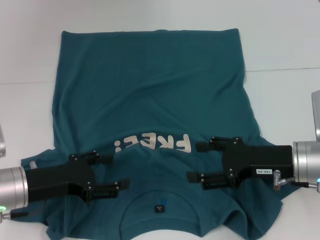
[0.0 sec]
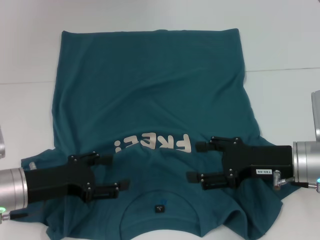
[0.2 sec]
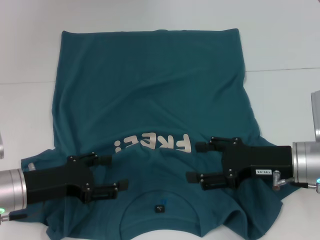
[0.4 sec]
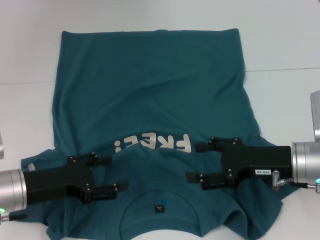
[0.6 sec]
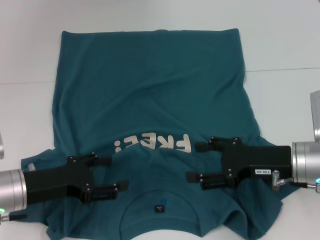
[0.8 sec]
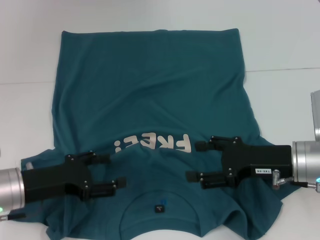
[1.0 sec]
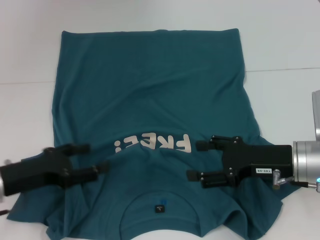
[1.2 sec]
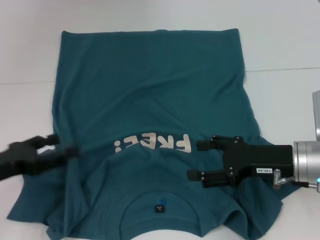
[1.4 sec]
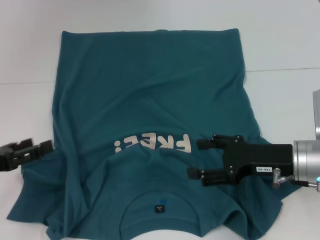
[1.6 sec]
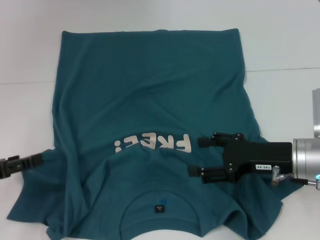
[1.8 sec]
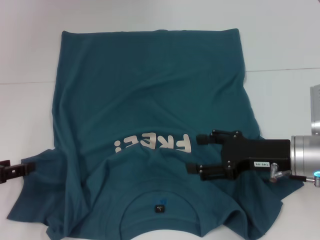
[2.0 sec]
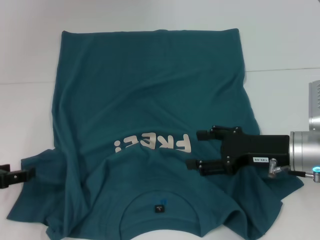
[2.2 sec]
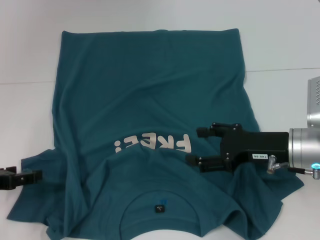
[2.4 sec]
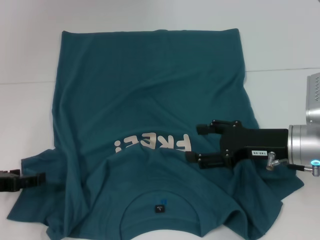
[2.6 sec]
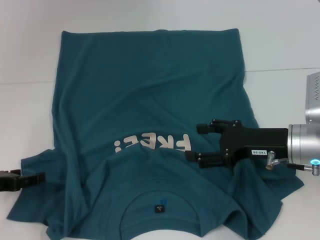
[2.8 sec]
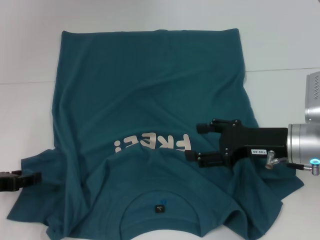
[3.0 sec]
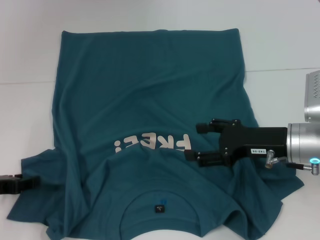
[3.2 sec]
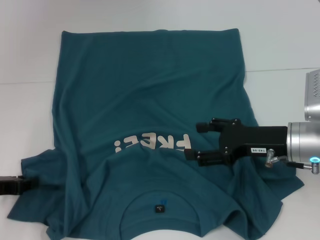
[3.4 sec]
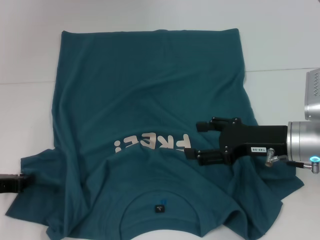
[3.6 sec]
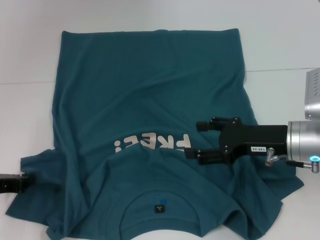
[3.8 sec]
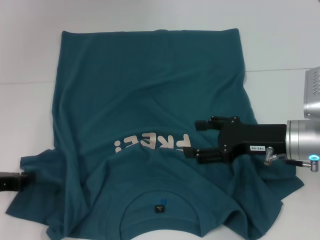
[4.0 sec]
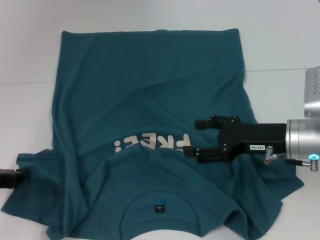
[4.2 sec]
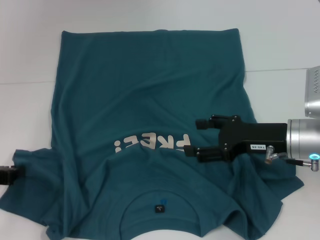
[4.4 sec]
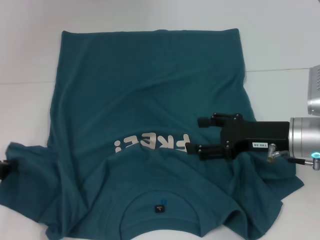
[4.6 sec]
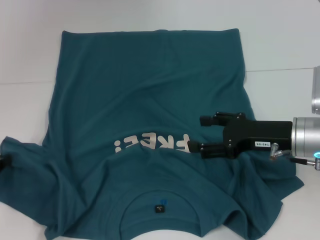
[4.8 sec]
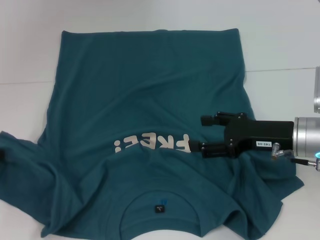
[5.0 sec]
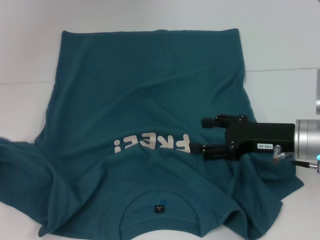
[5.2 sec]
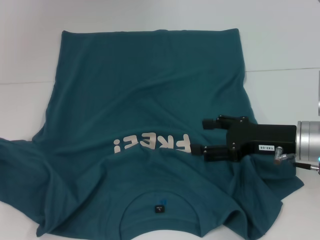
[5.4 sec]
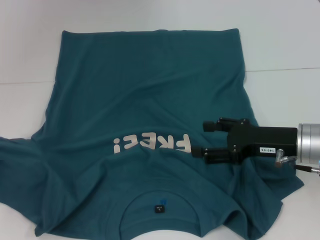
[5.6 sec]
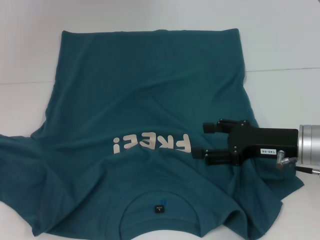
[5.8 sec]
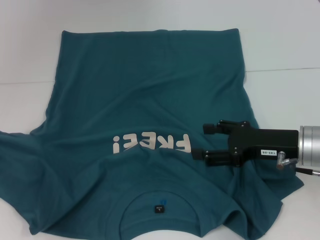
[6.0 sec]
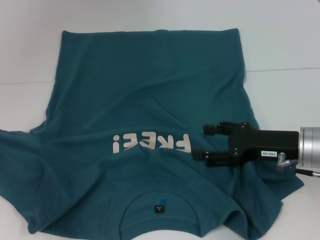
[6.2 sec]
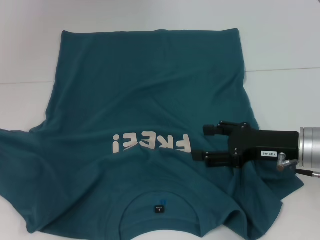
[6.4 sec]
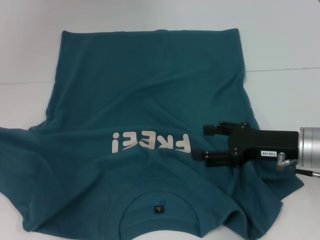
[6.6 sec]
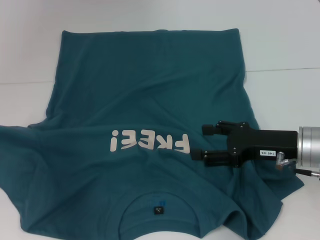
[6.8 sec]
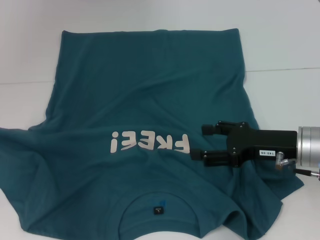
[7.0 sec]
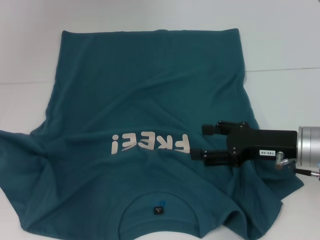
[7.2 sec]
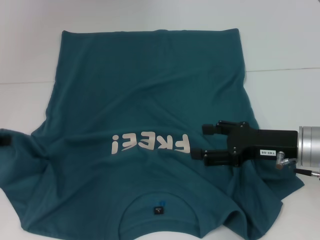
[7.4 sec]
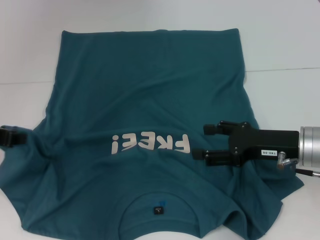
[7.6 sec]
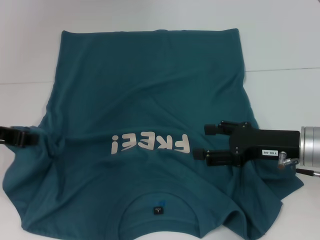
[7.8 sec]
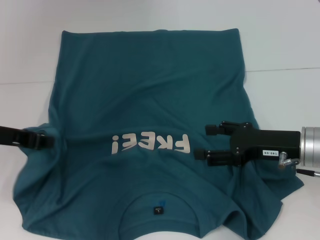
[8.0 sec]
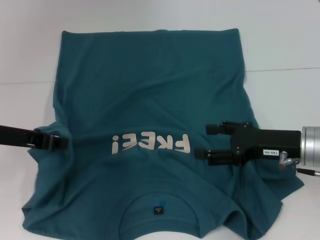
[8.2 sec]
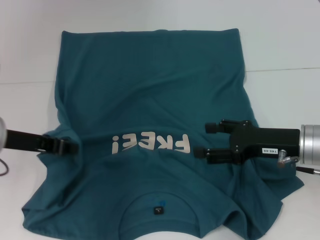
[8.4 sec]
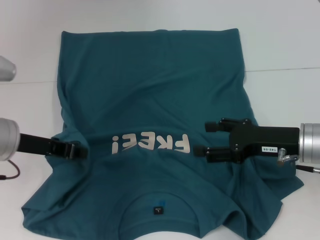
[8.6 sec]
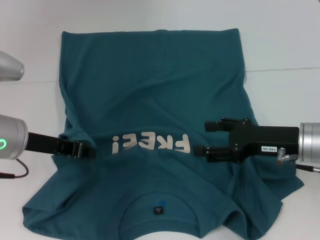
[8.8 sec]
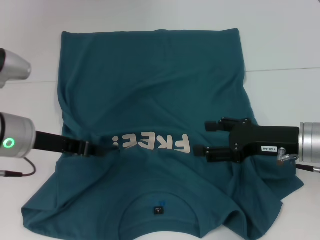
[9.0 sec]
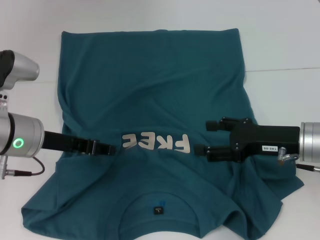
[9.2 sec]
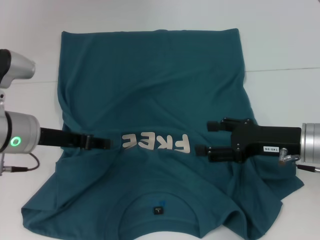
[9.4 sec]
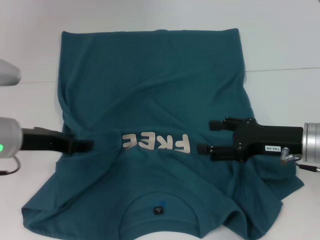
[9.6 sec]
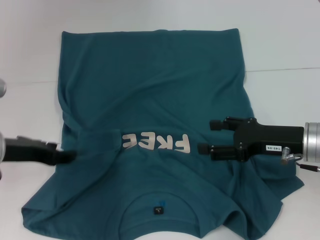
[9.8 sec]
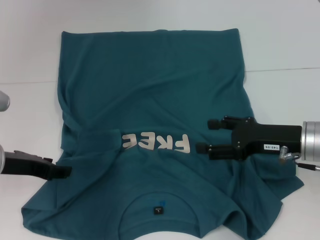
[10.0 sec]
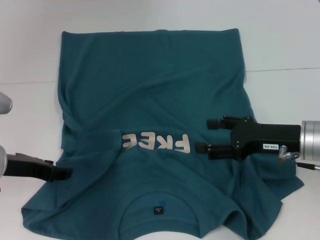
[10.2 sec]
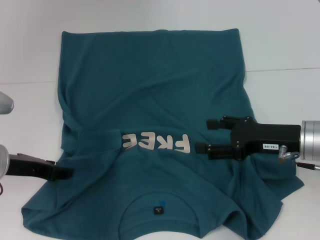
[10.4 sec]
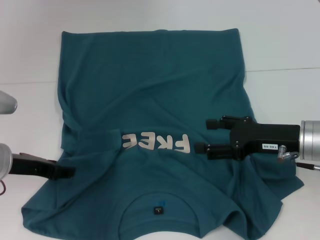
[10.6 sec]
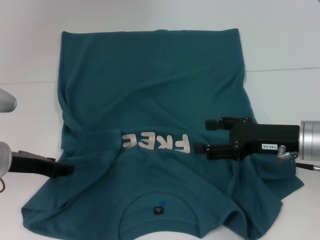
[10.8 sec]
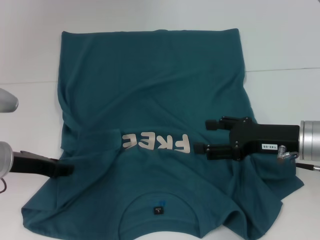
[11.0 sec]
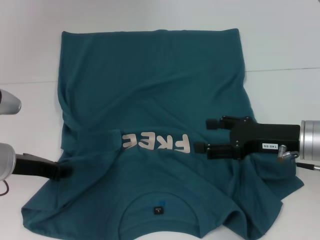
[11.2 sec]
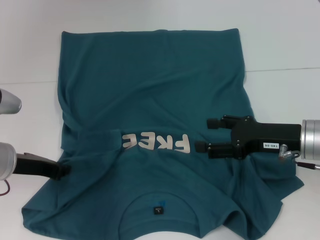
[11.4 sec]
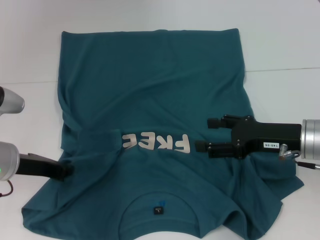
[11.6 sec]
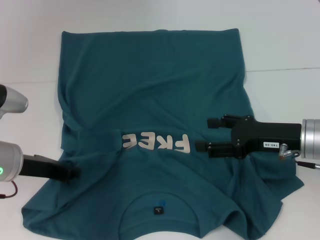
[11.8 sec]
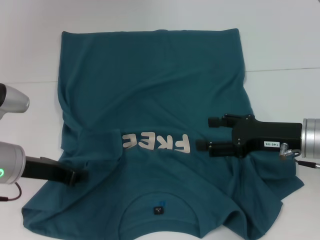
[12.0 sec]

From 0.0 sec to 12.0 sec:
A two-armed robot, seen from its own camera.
From 0.0 sec to 1.6 sec: The left gripper moves to the left, roughly 10 cm.
From 3.0 sec to 4.4 sec: The left gripper closes its fingers.
From 4.4 sec to 6.0 sec: The left gripper shifts roughly 5 cm upward.
From 6.0 sec to 7.6 sec: The left gripper heads to the right, covering some 5 cm.
From 7.6 sec to 9.0 sec: The left gripper goes roughly 10 cm to the right.
From 9.0 sec to 10.4 sec: The left gripper ends up about 5 cm from where it was, and opens up.
From 10.4 sec to 12.0 sec: The left gripper closes its fingers.

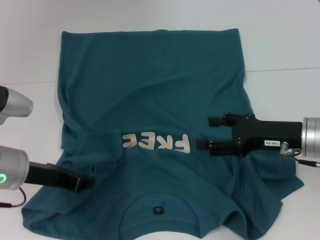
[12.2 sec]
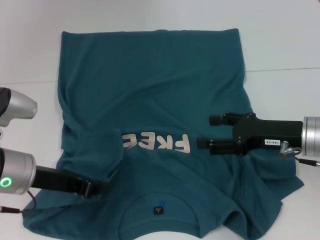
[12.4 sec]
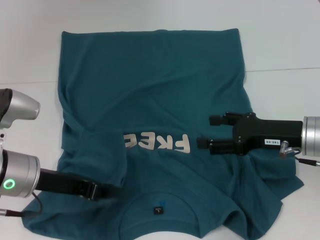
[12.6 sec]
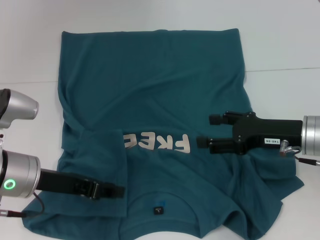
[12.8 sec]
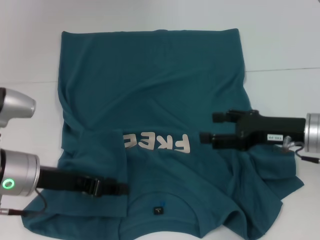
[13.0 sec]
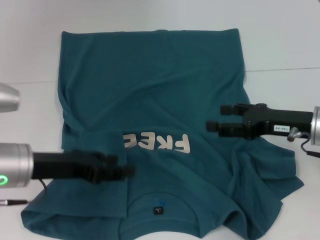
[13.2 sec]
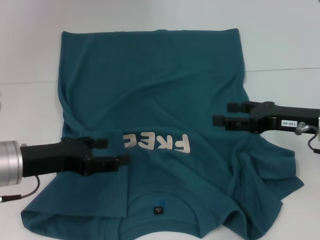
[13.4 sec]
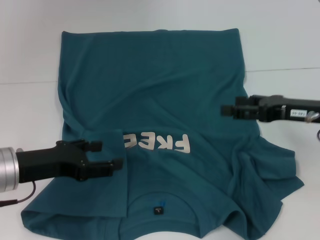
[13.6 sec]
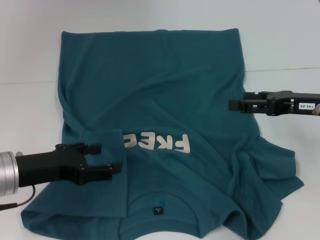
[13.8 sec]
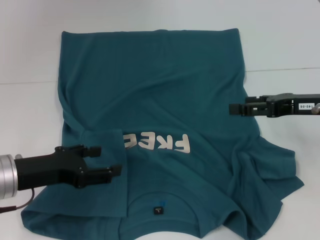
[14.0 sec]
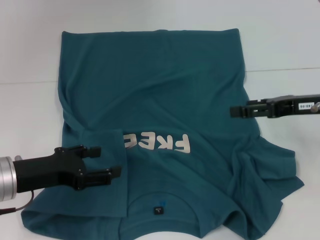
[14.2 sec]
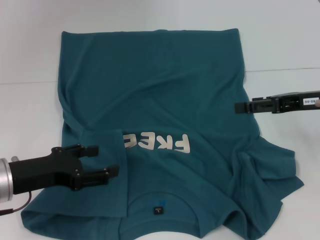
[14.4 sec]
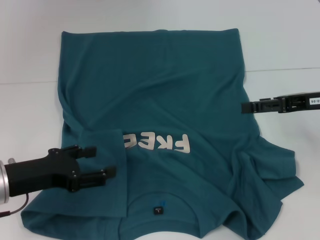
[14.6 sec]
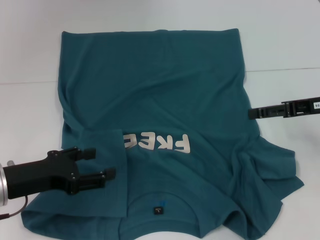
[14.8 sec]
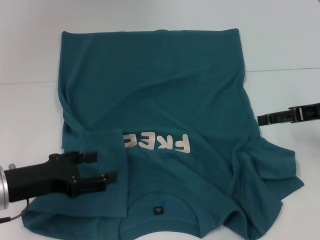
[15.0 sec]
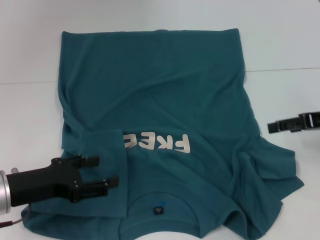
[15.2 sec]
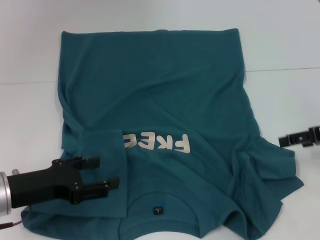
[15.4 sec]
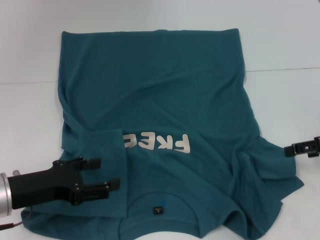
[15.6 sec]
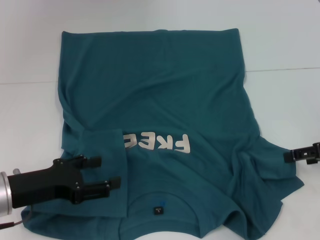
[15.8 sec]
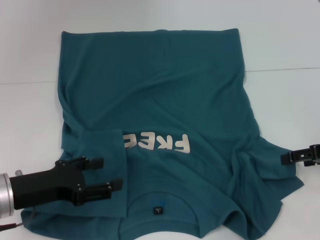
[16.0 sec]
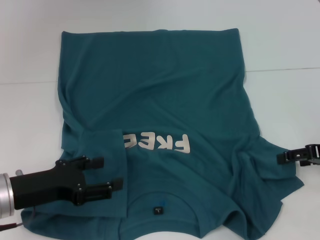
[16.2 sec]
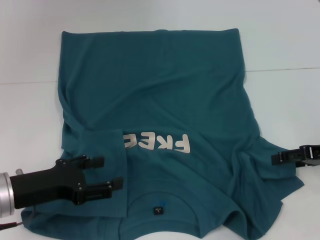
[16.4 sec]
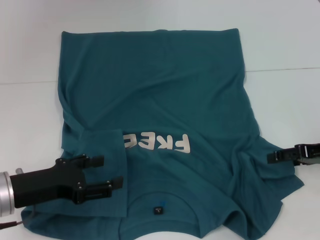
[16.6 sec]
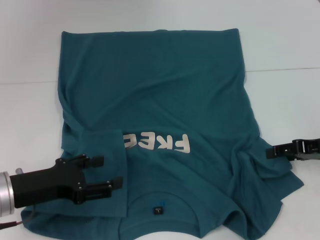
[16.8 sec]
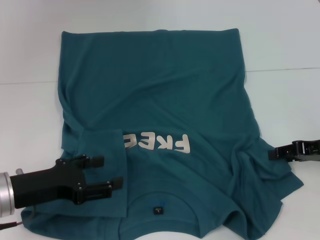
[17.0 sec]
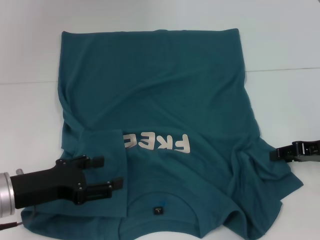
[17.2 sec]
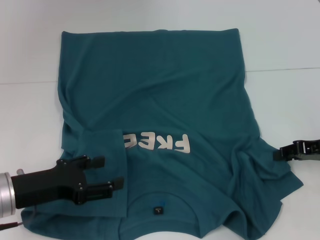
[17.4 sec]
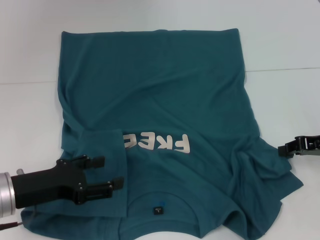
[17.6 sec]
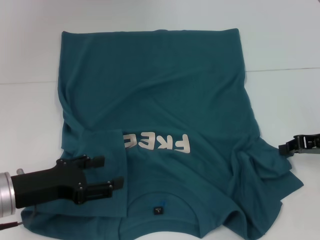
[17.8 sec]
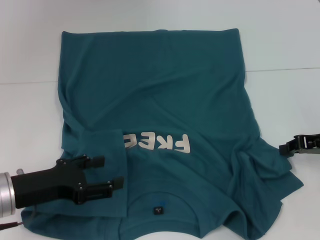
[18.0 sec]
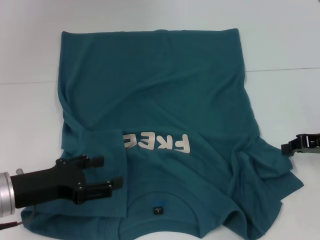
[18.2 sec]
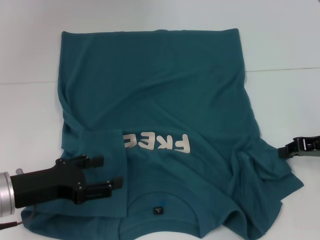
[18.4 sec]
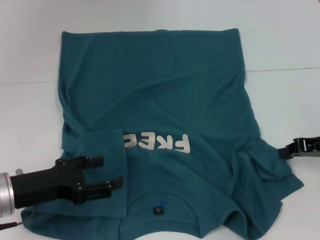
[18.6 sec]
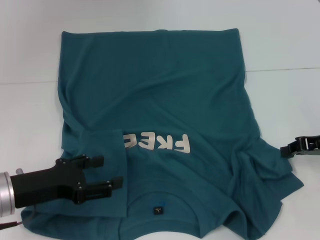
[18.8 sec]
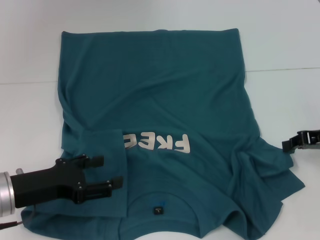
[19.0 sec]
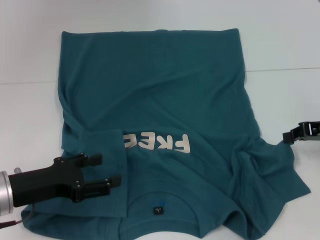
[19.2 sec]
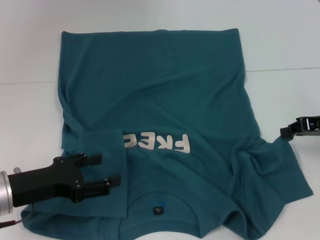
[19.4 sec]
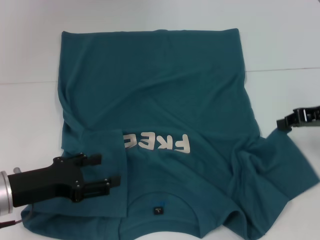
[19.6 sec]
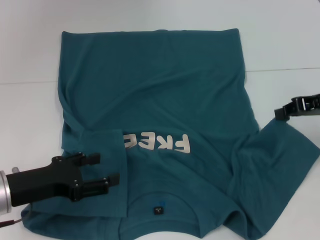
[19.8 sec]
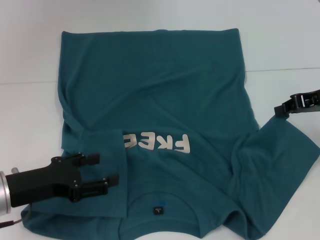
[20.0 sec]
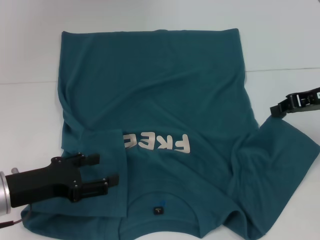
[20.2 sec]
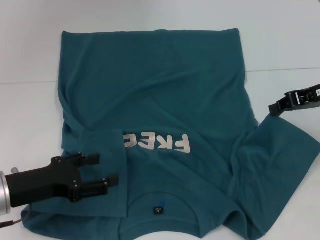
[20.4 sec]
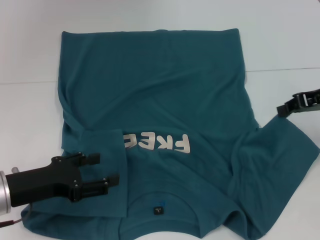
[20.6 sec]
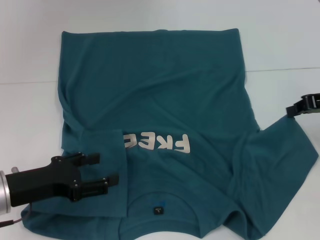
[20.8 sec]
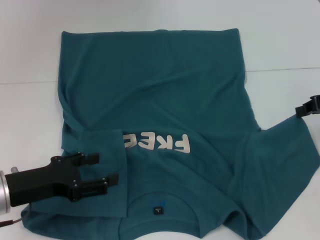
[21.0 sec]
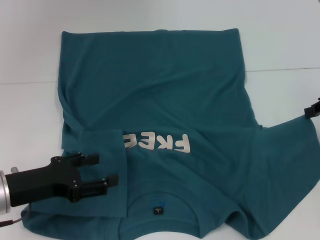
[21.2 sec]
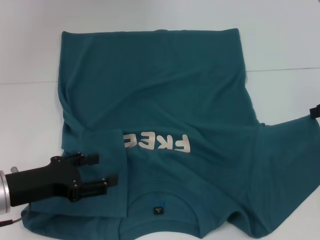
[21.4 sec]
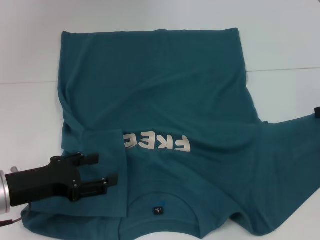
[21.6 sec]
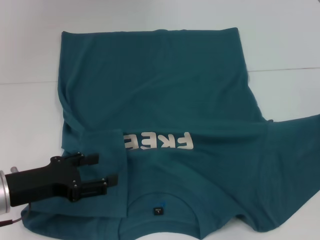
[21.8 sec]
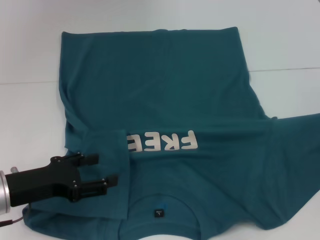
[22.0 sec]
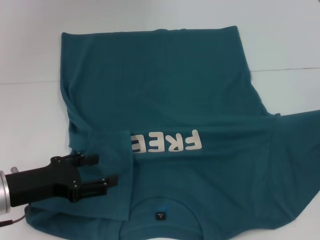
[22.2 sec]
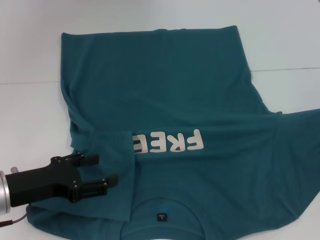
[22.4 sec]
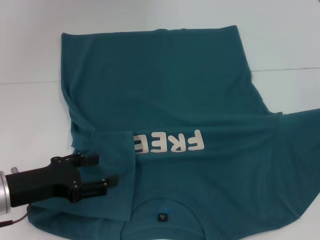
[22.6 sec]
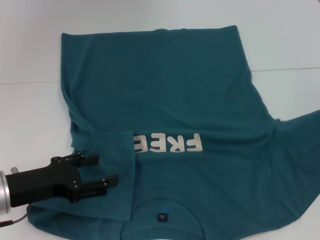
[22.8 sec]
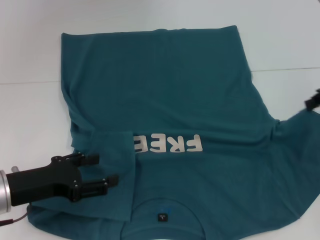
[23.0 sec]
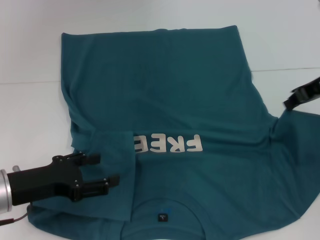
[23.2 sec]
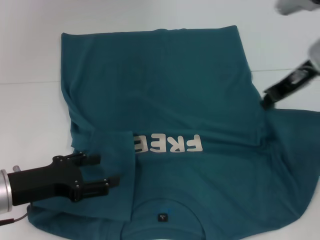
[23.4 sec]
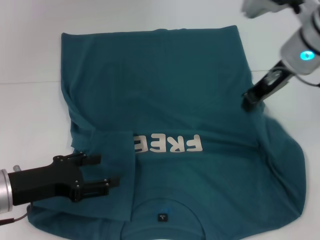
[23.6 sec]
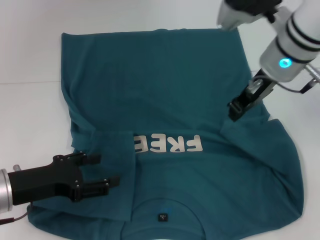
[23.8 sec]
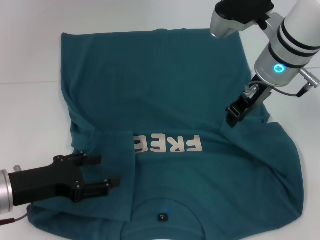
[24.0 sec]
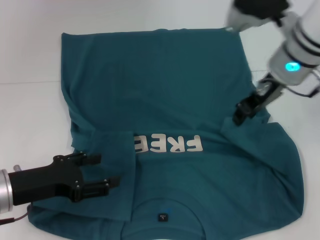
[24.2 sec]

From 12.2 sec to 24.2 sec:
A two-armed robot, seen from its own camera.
From 12.2 sec to 13.8 sec: The right gripper shifts by approximately 5 cm; the left gripper opens its fingers.
From 15.2 sec to 16.6 sec: The right gripper goes approximately 5 cm downward.
From 16.6 sec to 18.2 sec: The right gripper closes up.
From 18.2 sec to 19.8 sec: The right gripper moves upward, some 5 cm.
From 19.8 sec to 21.2 sec: There are only small adjustments of the grippers.
From 21.2 sec to 22.6 sec: The grippers stay close to where they were, moving slightly.
From 22.6 sec to 24.2 sec: The right gripper heads to the left, covering about 20 cm.
